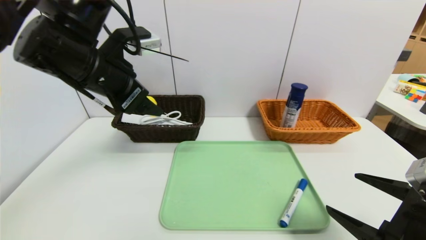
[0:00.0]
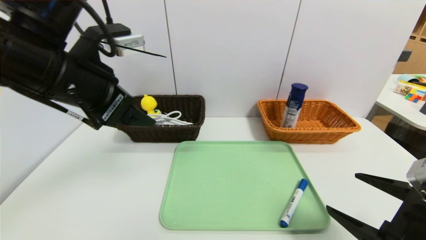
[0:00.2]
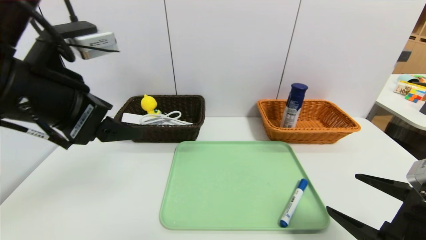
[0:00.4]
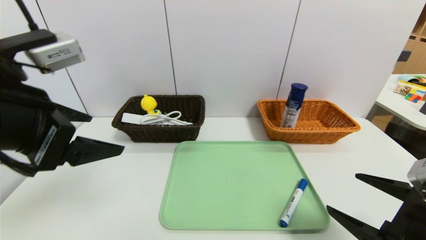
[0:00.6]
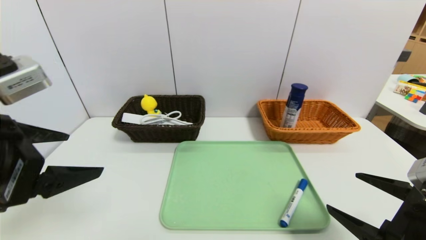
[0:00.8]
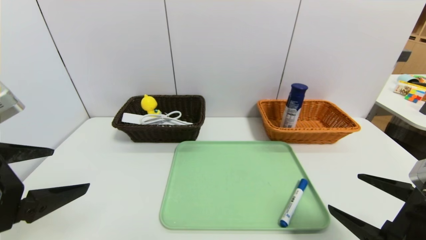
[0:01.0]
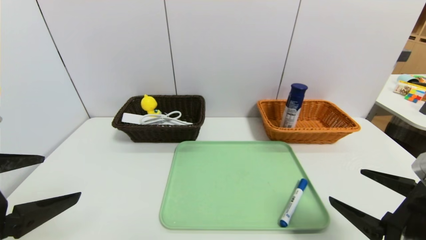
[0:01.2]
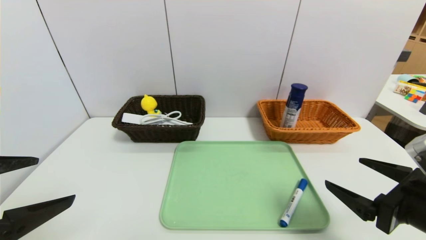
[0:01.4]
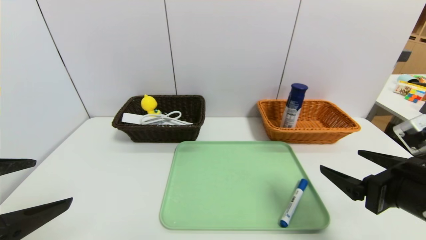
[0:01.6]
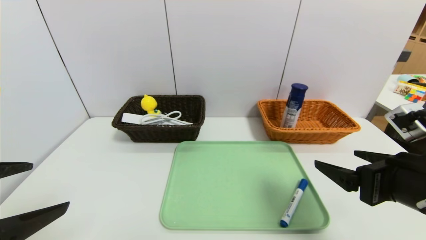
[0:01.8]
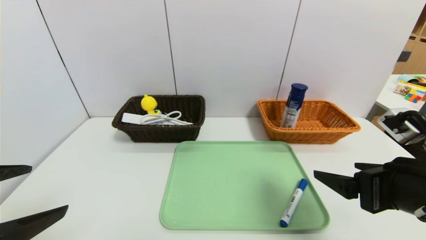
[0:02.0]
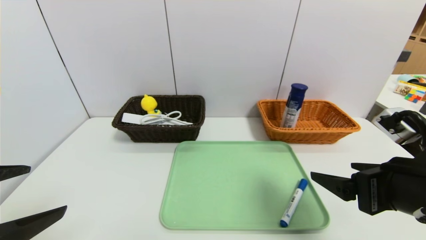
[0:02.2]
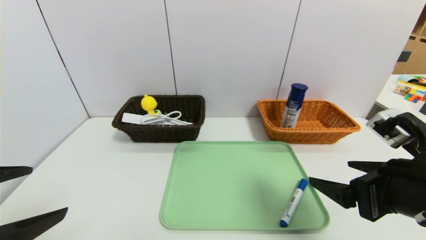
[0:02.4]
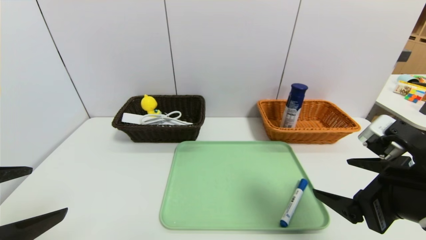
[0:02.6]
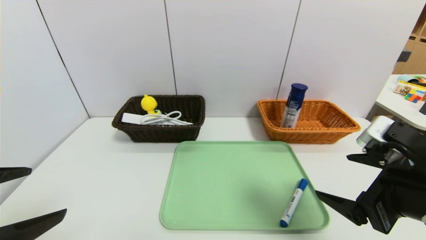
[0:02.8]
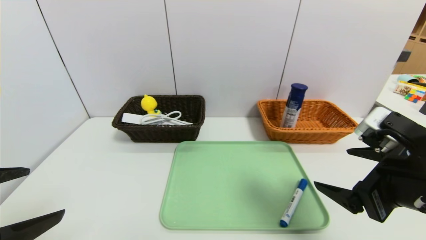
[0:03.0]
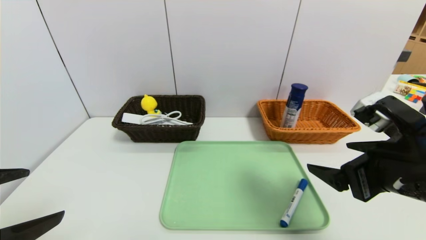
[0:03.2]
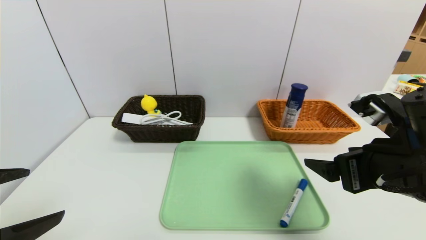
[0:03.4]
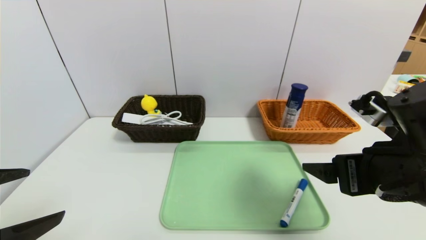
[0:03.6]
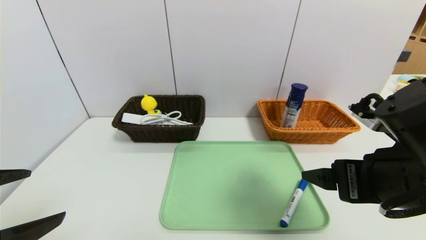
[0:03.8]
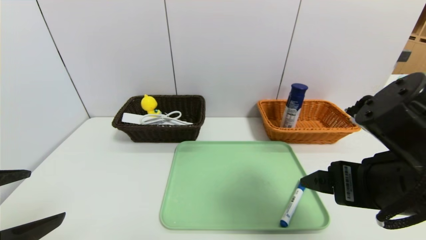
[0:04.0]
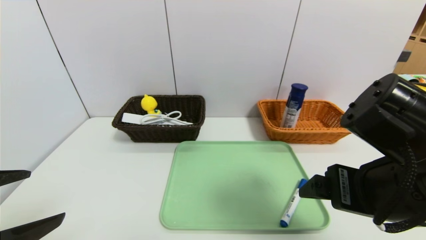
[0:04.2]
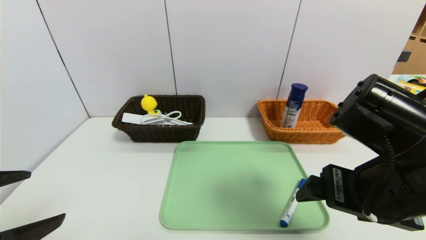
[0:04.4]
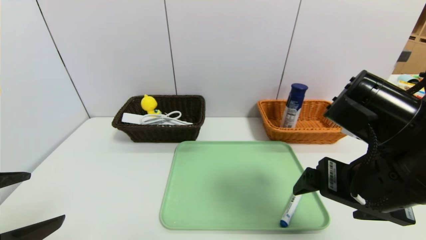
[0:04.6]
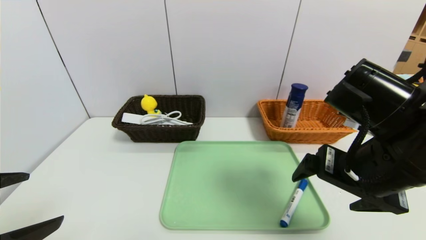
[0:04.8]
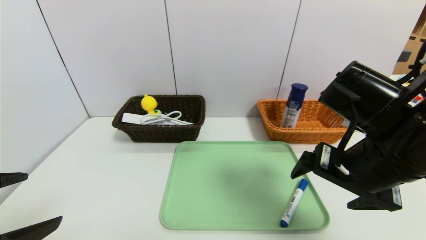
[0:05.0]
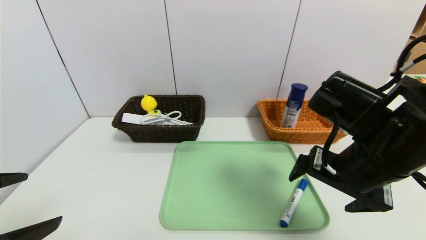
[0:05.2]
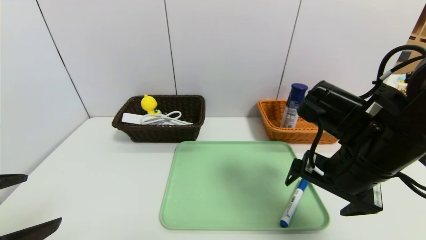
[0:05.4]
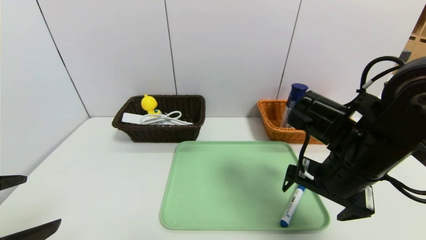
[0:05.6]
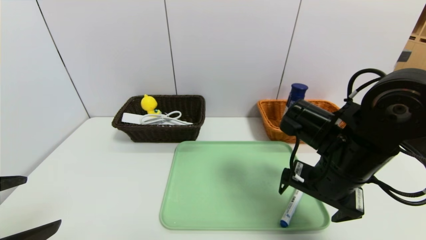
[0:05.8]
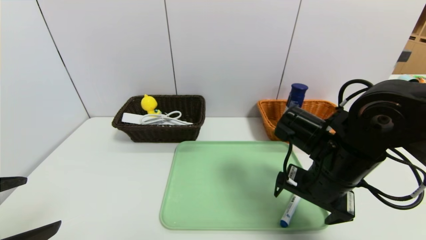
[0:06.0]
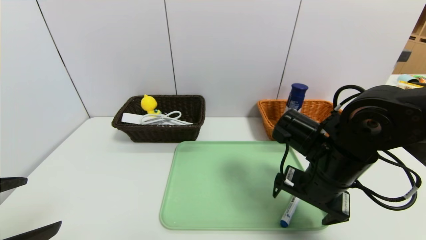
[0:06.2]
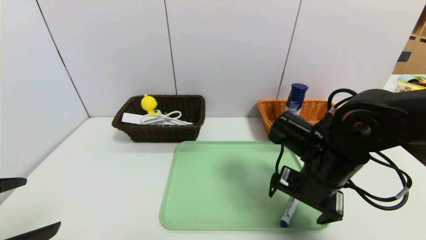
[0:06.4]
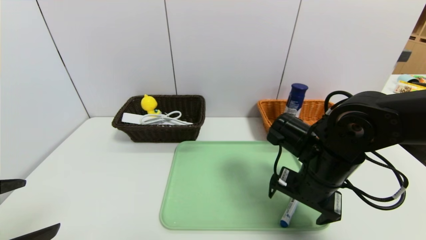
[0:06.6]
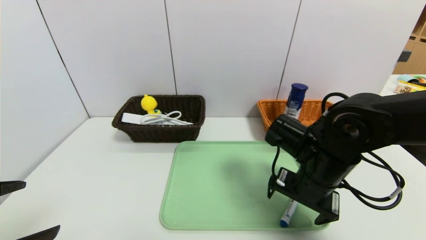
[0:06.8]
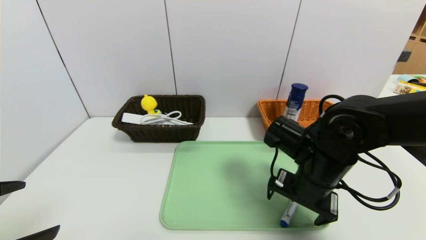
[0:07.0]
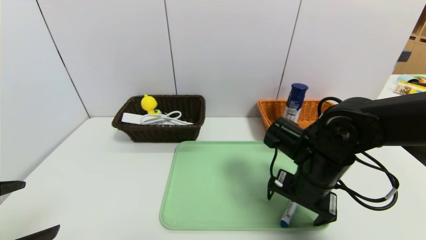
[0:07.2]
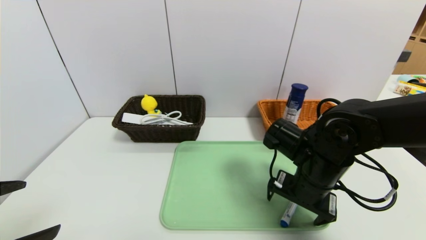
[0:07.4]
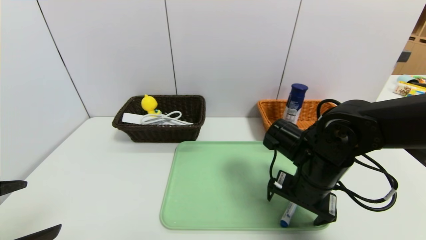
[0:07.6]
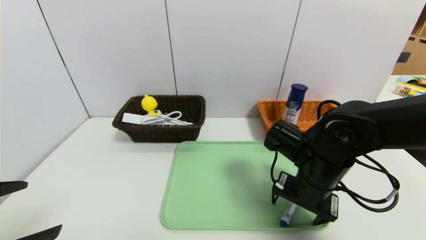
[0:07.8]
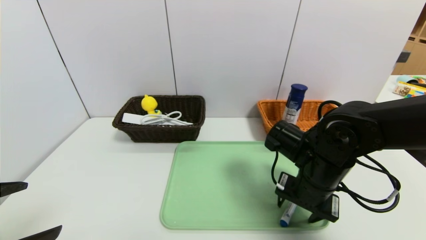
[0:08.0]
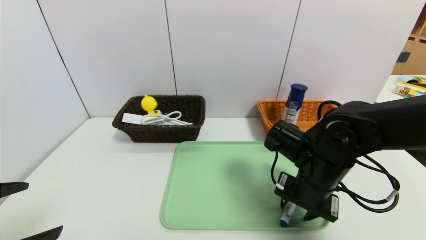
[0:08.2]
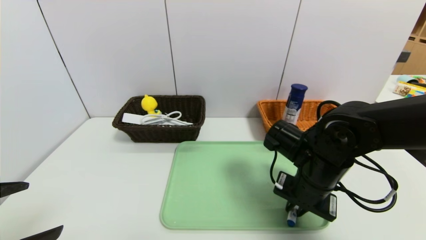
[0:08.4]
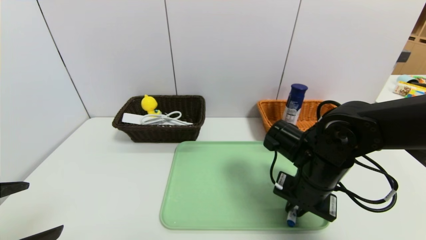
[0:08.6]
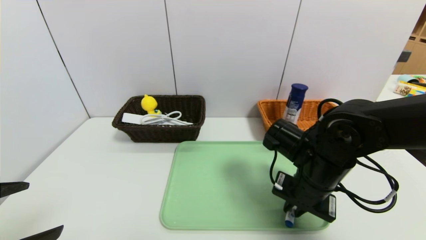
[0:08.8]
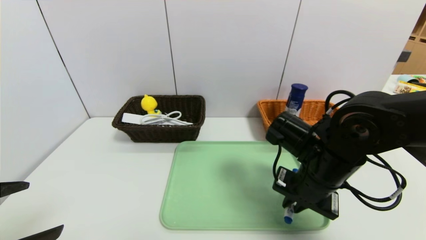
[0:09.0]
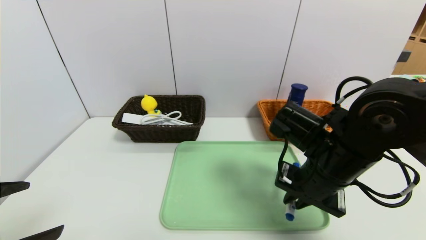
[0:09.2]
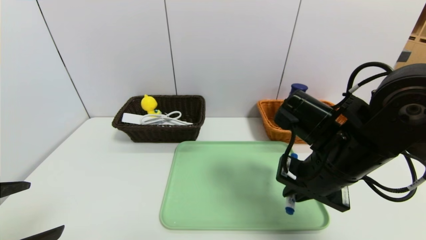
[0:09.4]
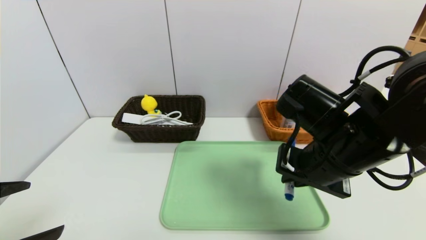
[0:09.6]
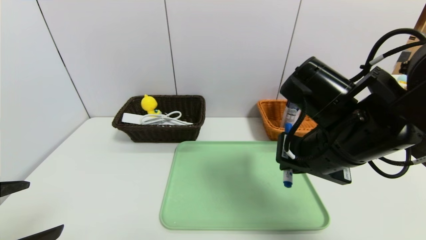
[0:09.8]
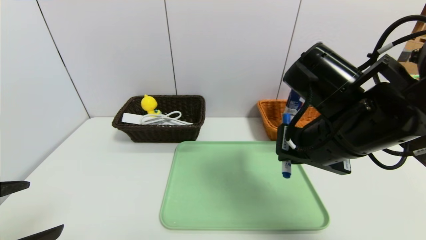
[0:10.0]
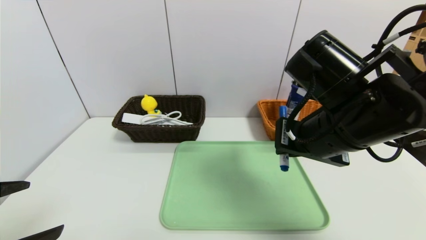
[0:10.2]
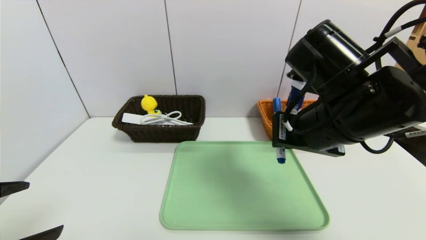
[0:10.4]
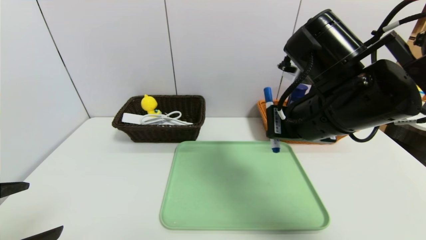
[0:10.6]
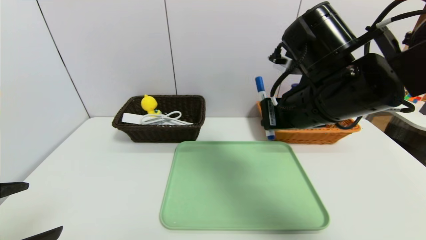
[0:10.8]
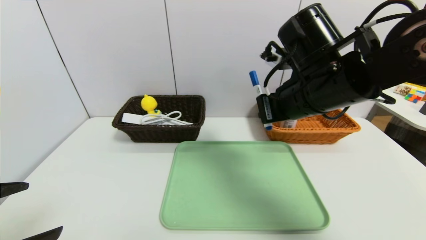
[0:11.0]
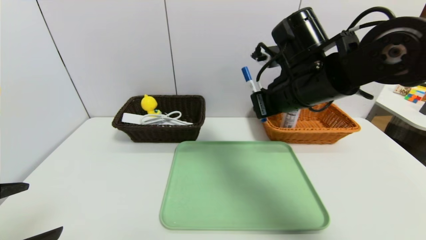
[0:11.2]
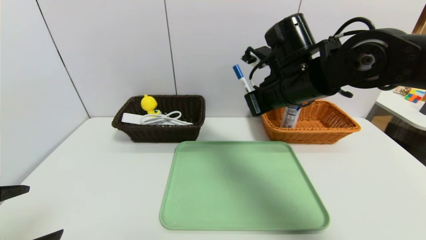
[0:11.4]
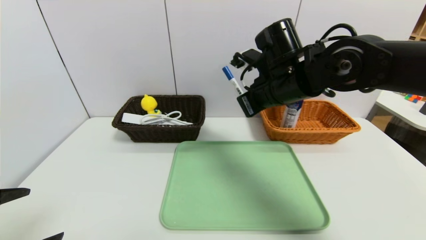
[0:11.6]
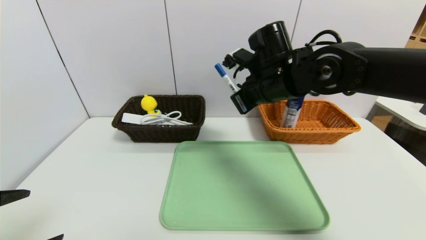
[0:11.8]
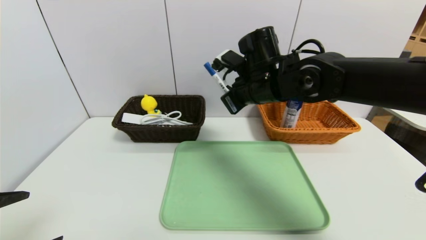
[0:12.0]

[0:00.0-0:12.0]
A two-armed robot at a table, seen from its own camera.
Task of the whole recording: place the food in the right basket with the right gripper, and place the non food items in the left basket with the left gripper.
0:00.0 to 0:01.6: The right gripper moves roughly 5 cm; the left gripper moves backward and to the left, roughly 20 cm.
0:03.0 to 0:04.4: The right gripper is displaced to the left by about 5 cm.
0:04.4 to 0:06.0: The right gripper goes approximately 10 cm forward and downward.
0:06.0 to 0:07.6: The grippers move only a little.
0:07.6 to 0:09.0: The right gripper closes up.
0:09.0 to 0:10.4: The right gripper heads upward, covering approximately 10 cm.
0:10.4 to 0:12.0: The right gripper shifts about 15 cm forward and to the left.

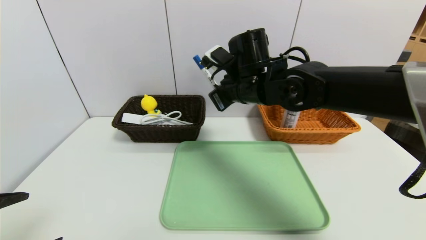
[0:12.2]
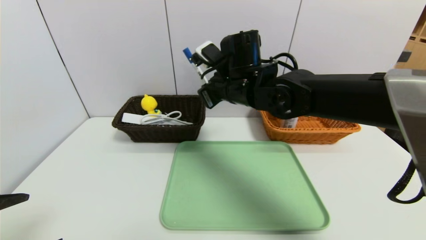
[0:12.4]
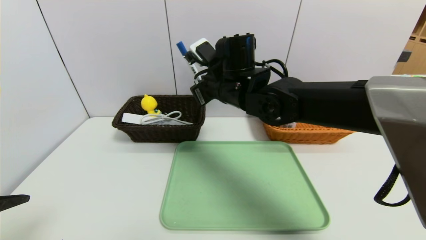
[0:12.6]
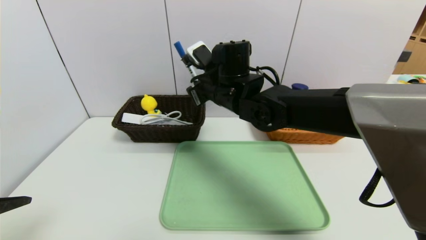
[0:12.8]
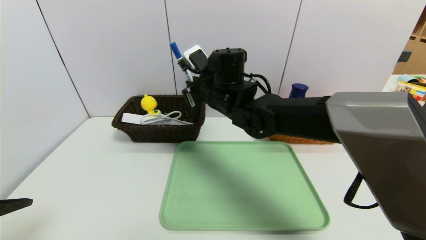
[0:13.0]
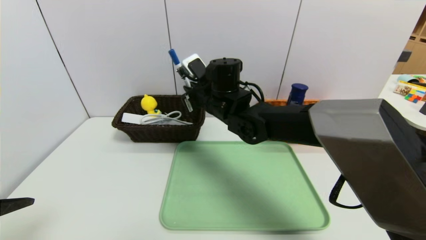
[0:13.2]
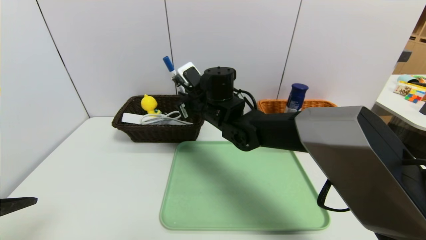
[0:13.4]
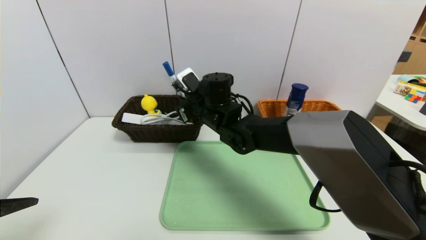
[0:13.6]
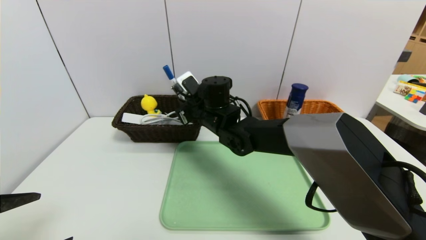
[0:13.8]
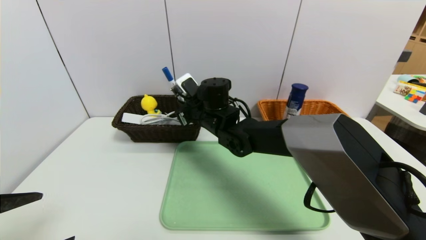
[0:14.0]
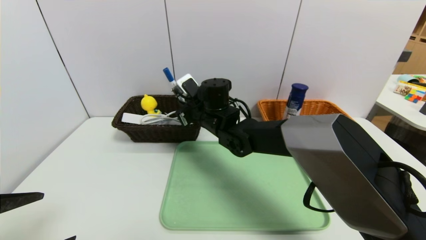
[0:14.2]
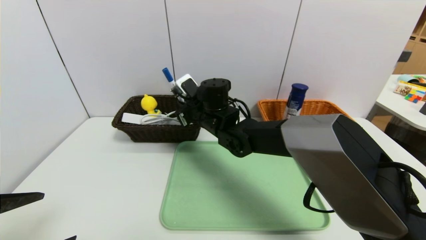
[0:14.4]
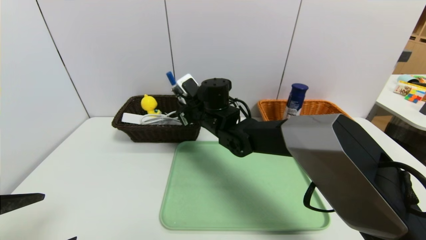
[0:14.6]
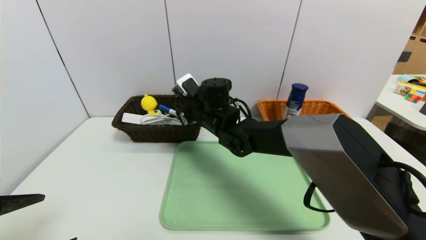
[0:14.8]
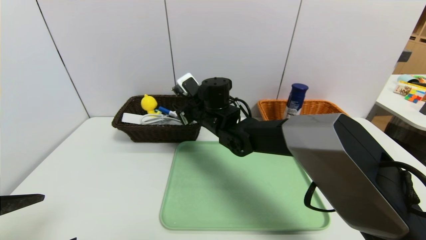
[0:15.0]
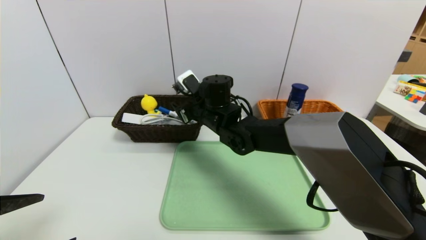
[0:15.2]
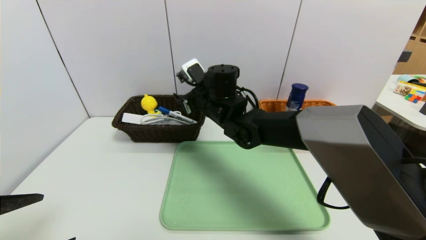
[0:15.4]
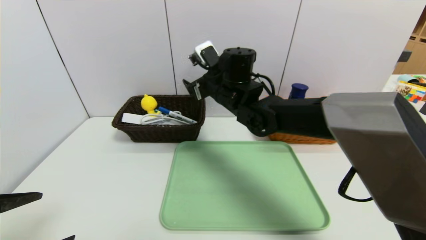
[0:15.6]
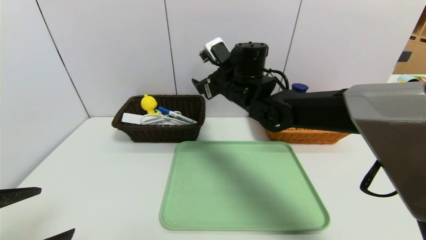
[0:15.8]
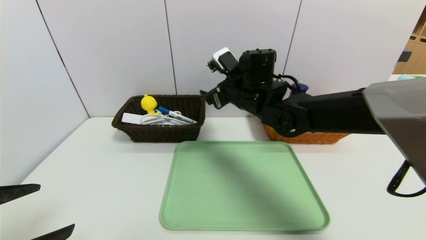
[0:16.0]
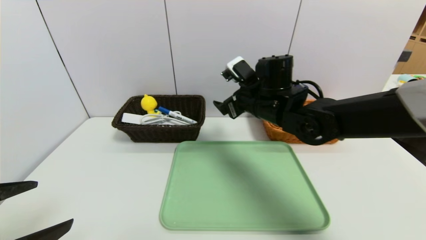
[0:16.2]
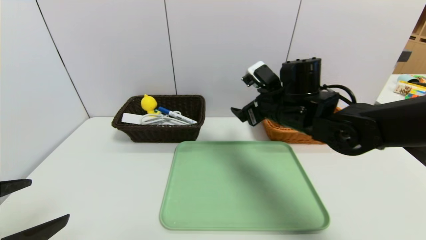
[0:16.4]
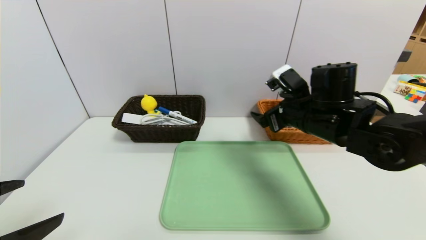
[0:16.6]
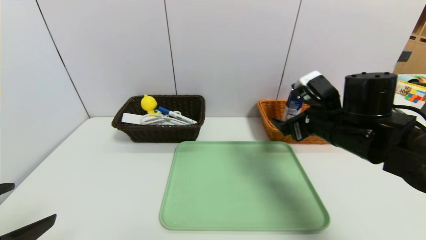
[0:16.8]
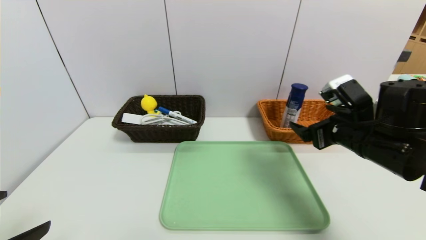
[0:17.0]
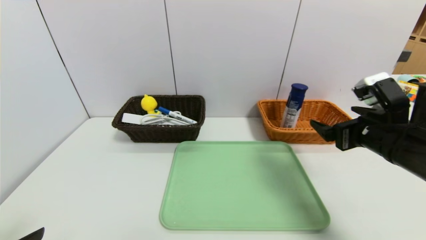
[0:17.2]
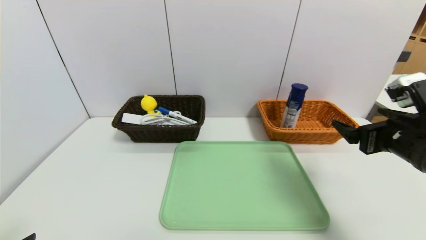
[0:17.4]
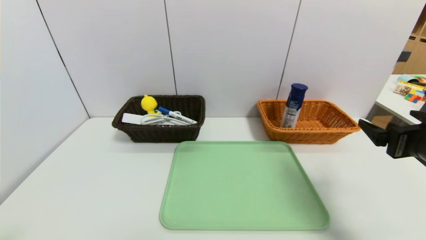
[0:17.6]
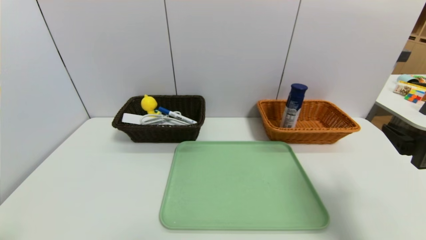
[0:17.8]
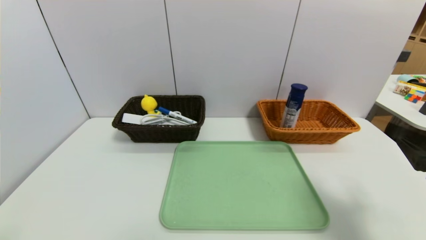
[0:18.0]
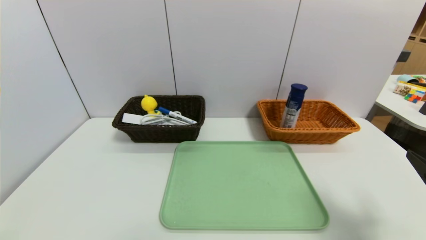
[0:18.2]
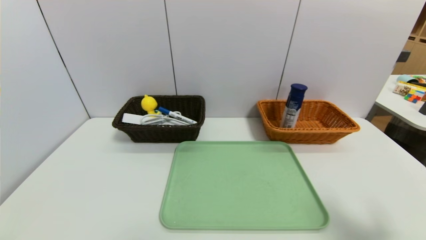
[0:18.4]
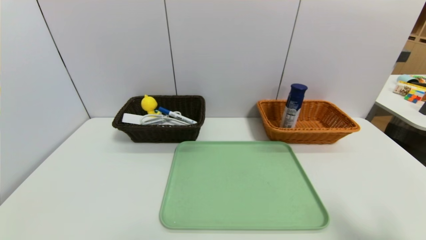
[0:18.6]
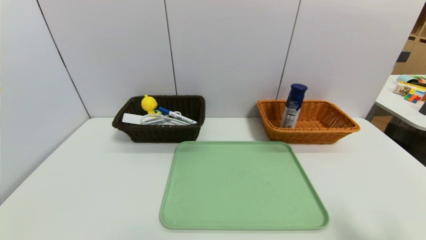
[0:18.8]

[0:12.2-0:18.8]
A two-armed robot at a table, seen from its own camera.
Task of the whole recording: place the food in the right basket with the right gripper, and place the non food items in the left basket with the left gripper.
Step, 0:12.2 to 0:14.6: Grasp the blue marker and put it in the left basket.
0:12.2 to 0:13.8: The right gripper travels downward and to the left by approximately 10 cm.
0:13.8 to 0:15.4: The right gripper opens up.
0:15.4 to 0:17.2: The right gripper is displaced to the right and backward by some 30 cm.
0:17.2 to 0:18.8: The right gripper moves backward and to the right, approximately 20 cm; the left gripper goes some 10 cm backward.
